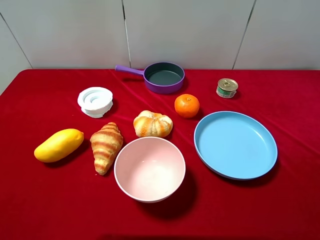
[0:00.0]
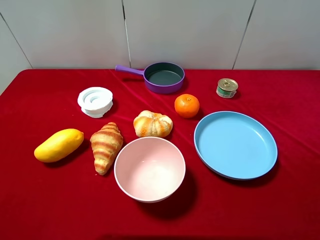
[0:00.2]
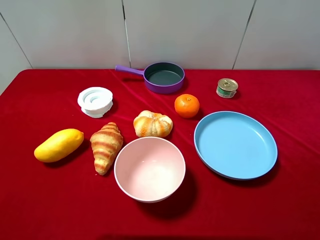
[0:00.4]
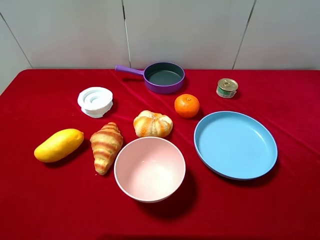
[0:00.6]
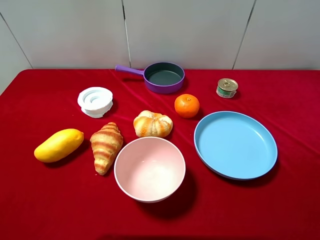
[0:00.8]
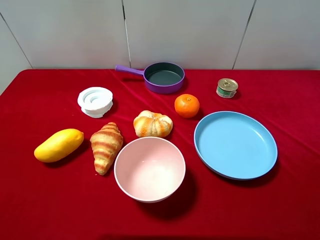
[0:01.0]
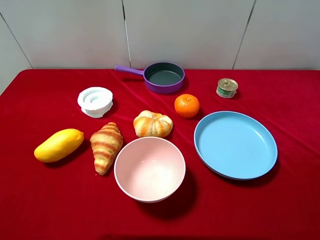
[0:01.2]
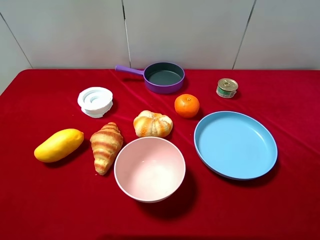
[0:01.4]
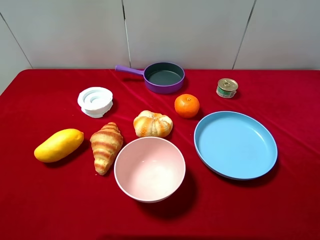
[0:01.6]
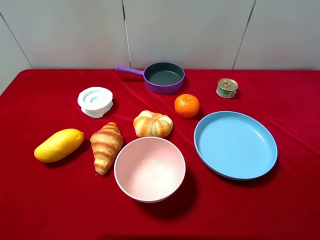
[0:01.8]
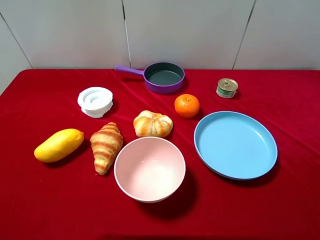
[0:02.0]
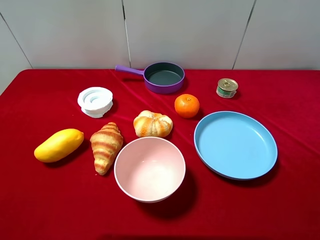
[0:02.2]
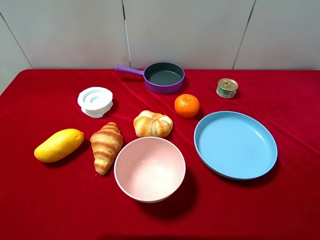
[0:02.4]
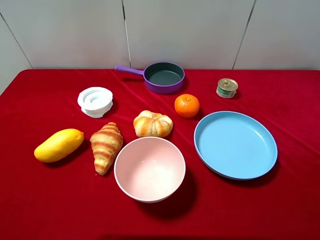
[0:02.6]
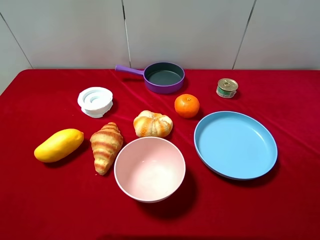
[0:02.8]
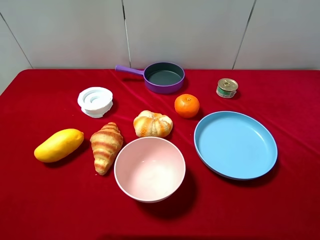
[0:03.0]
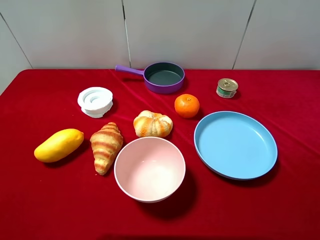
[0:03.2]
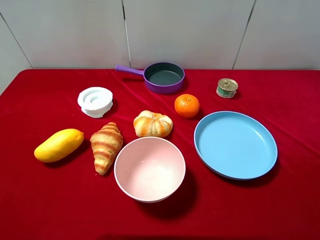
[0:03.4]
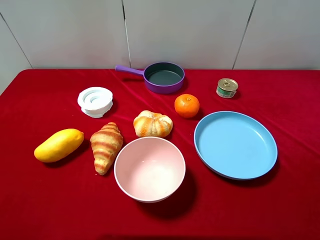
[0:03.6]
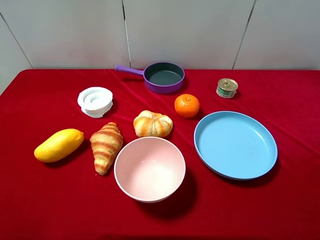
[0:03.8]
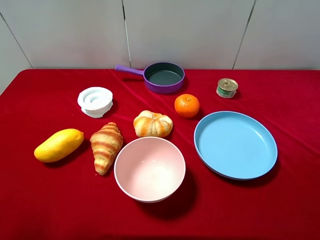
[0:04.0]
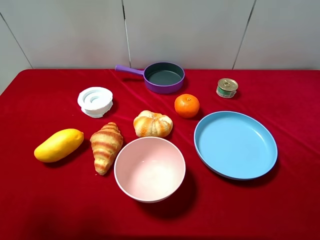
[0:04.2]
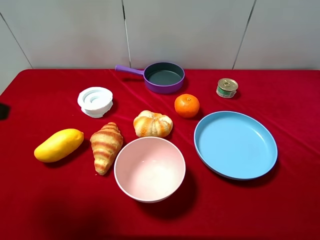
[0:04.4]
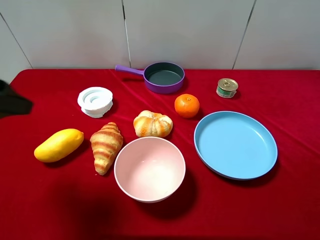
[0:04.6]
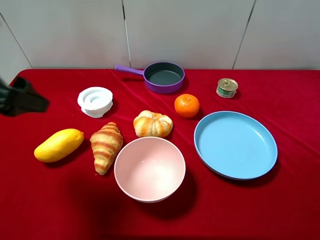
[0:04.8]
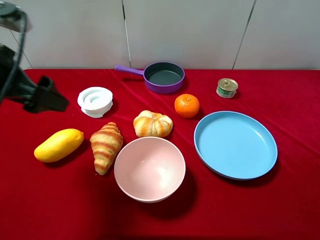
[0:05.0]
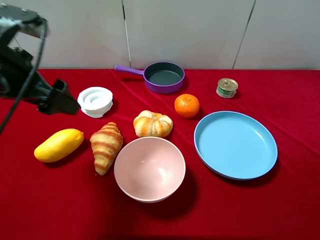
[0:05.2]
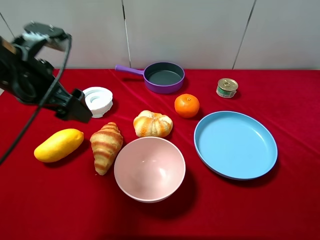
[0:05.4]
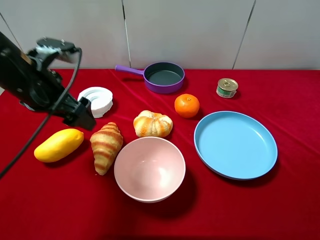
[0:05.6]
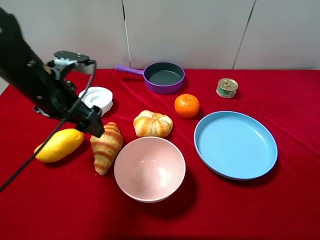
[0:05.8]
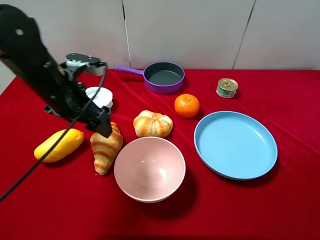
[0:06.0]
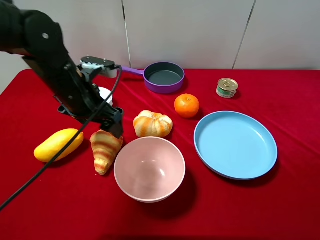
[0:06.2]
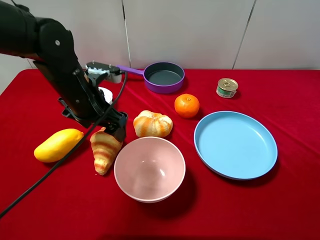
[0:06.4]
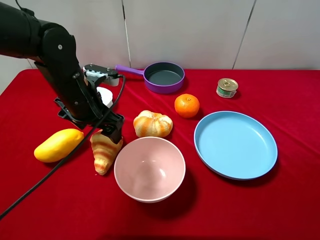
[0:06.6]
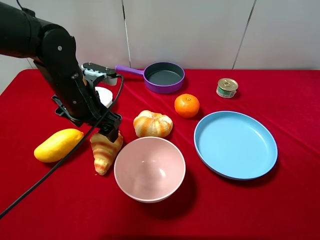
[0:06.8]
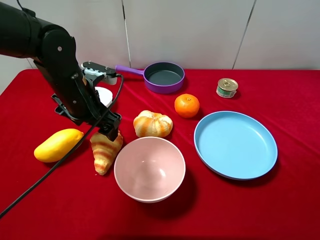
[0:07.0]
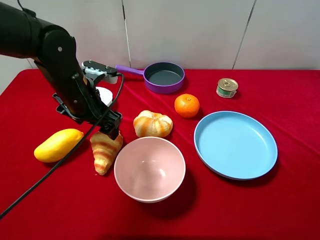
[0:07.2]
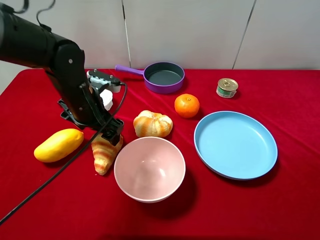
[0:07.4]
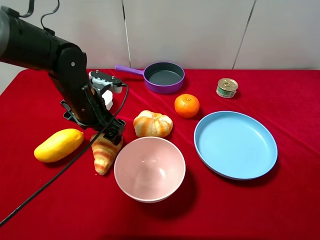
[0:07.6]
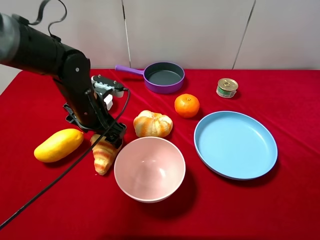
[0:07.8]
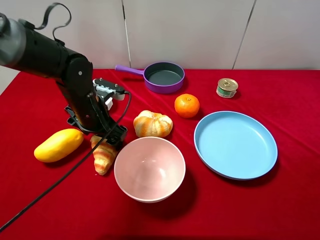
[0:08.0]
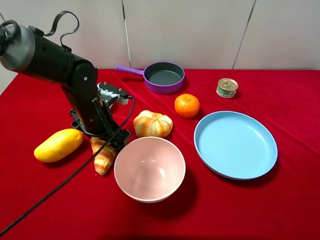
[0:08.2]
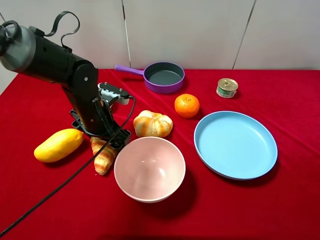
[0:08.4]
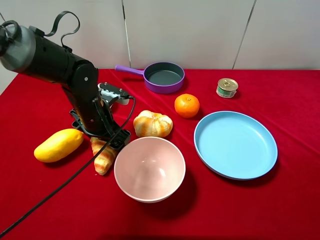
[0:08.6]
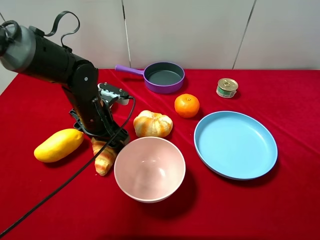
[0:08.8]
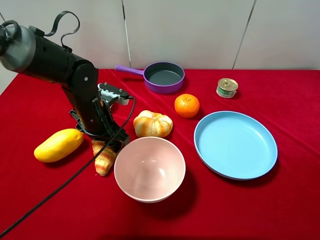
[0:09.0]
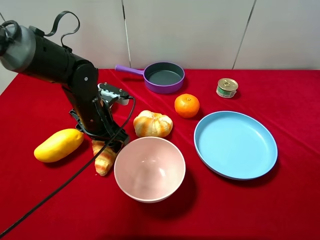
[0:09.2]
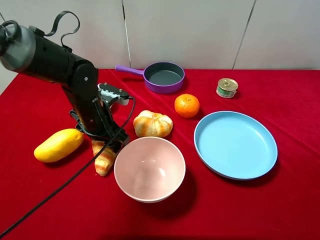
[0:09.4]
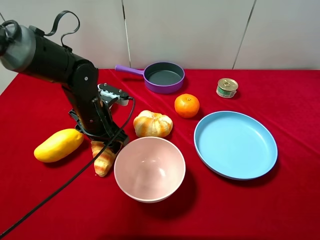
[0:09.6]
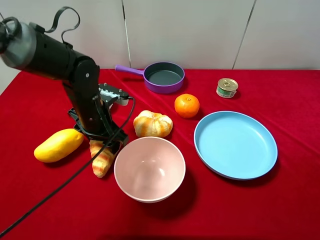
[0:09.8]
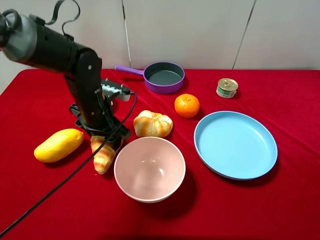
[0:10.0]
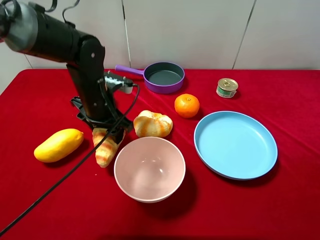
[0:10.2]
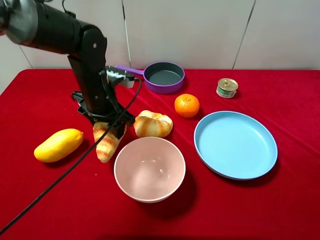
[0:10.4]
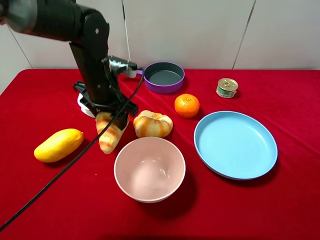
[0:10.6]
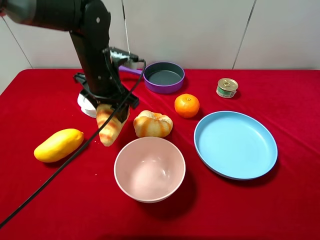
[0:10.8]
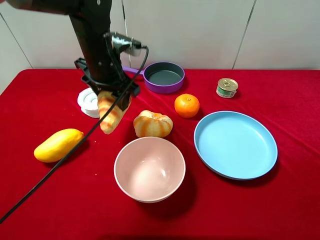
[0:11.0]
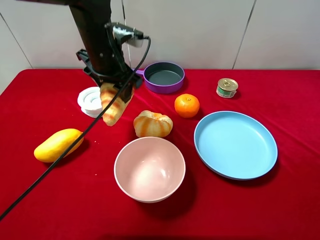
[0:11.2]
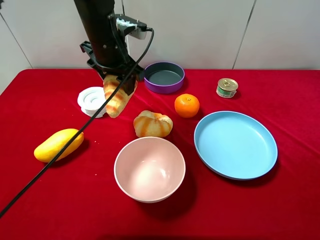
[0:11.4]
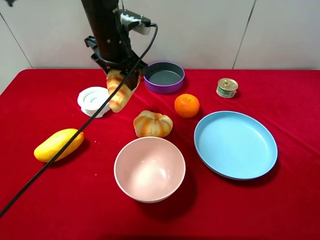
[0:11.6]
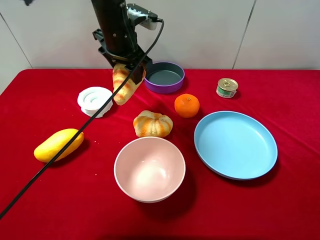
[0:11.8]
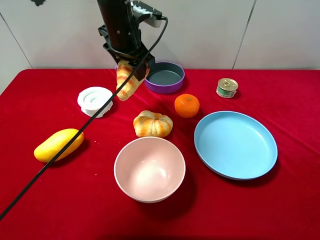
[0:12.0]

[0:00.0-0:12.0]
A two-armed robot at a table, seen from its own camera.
Task of the whole recording: pick up an item with a gripper and place it in a random container on the desktop.
0:00.0 to 0:03.0: Both grippers stay put.
0:03.0 to 0:04.4: The left gripper goes some 15 cm forward.
0:04.4 to 0:06.0: The left gripper heads forward, to the right and downward, covering some 20 cm.
0:06.0 to 0:07.6: The left gripper goes some 5 cm downward.
0:07.6 to 0:09.0: The left gripper closes its fingers.
0:09.0 to 0:10.4: The left gripper moves approximately 5 cm.
0:10.4 to 0:12.0: The left gripper shifts some 15 cm forward and upward.

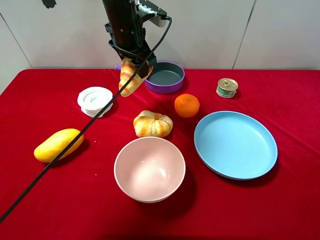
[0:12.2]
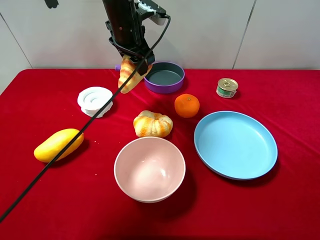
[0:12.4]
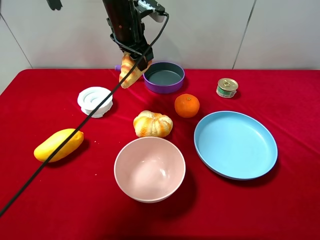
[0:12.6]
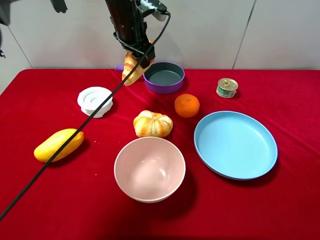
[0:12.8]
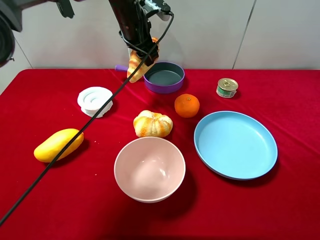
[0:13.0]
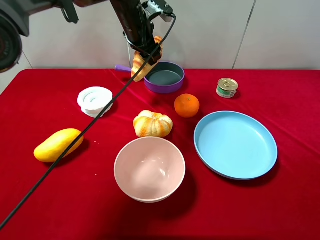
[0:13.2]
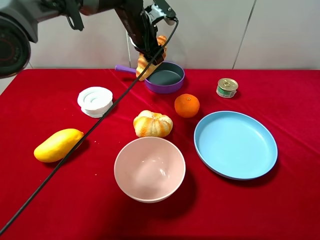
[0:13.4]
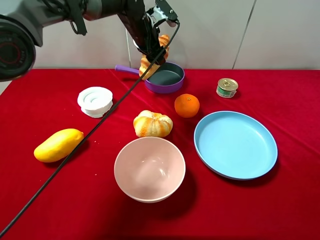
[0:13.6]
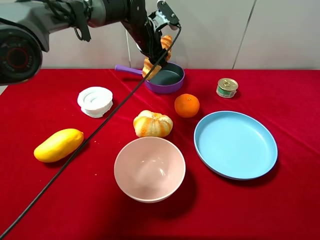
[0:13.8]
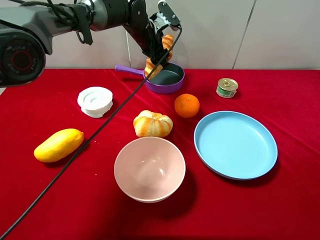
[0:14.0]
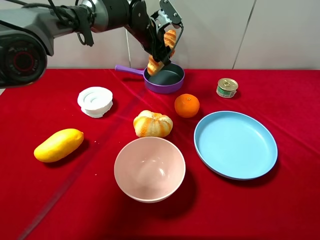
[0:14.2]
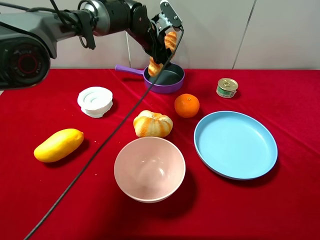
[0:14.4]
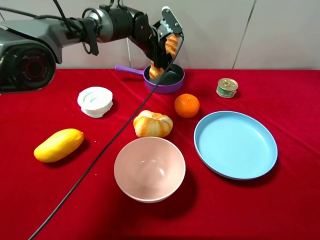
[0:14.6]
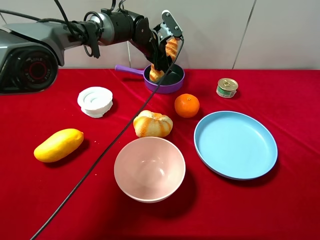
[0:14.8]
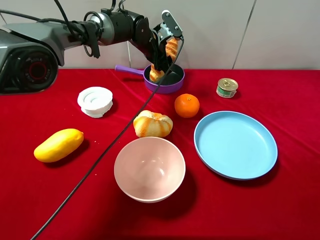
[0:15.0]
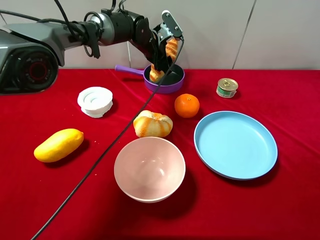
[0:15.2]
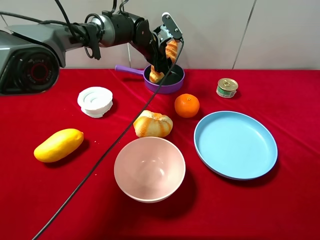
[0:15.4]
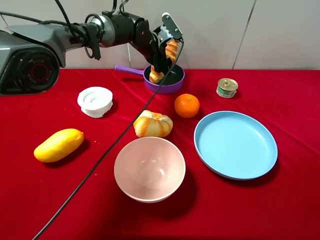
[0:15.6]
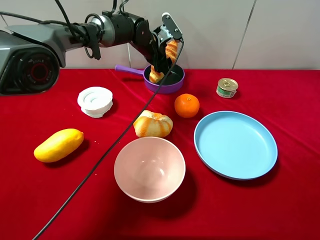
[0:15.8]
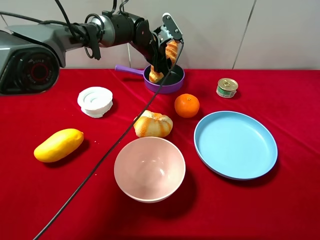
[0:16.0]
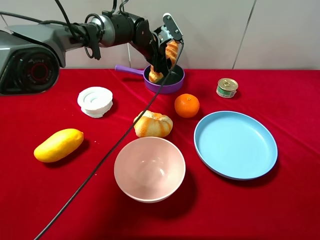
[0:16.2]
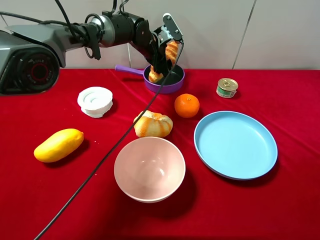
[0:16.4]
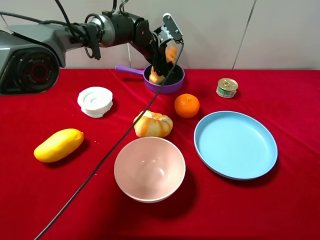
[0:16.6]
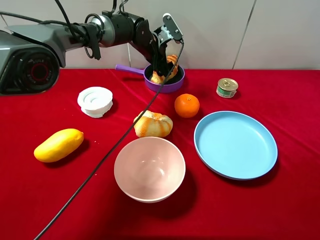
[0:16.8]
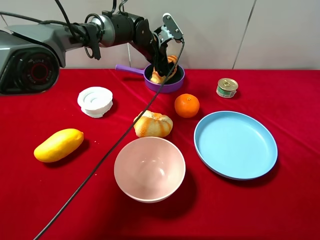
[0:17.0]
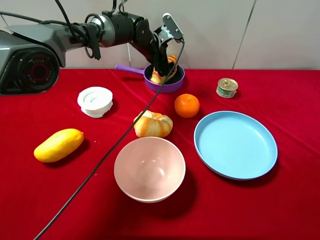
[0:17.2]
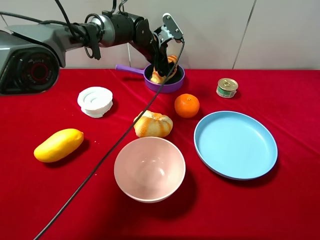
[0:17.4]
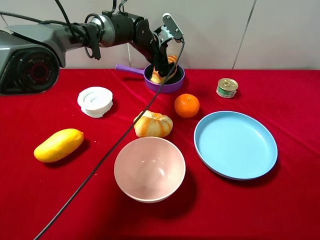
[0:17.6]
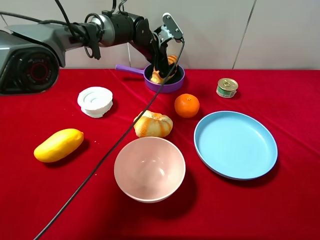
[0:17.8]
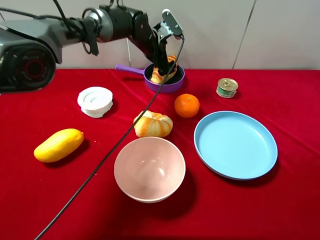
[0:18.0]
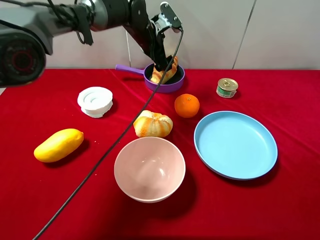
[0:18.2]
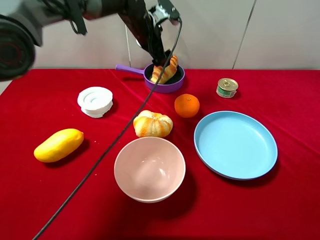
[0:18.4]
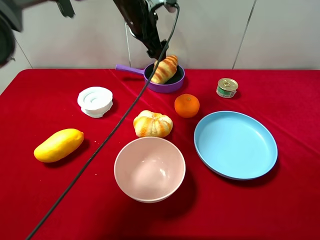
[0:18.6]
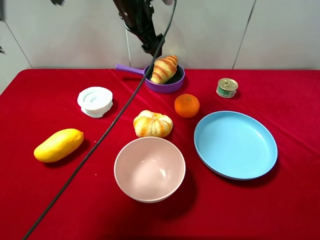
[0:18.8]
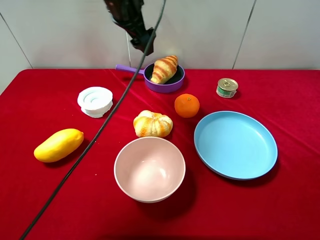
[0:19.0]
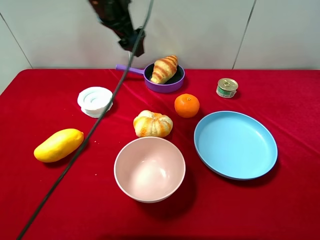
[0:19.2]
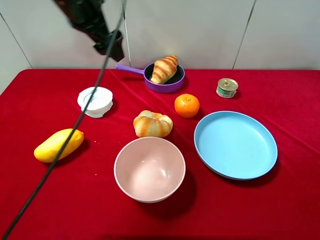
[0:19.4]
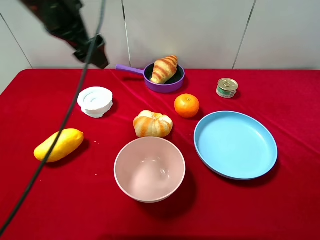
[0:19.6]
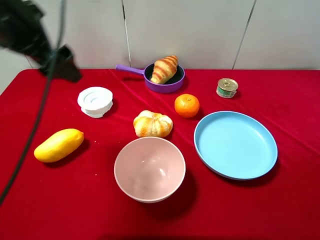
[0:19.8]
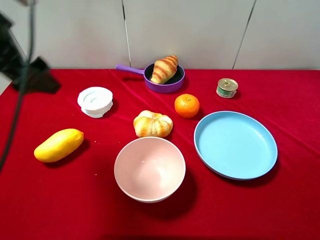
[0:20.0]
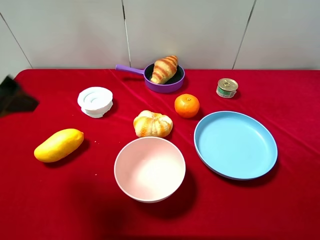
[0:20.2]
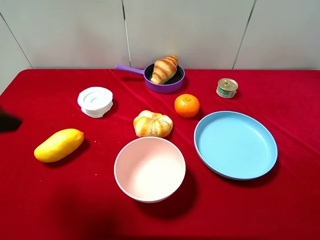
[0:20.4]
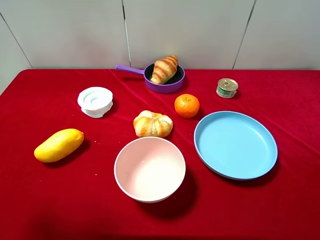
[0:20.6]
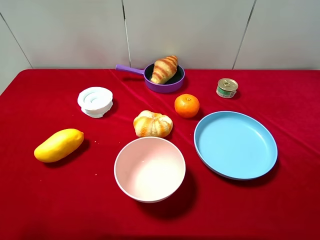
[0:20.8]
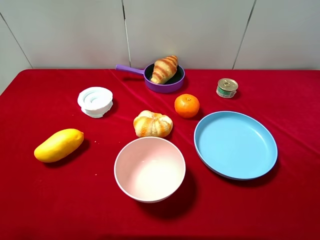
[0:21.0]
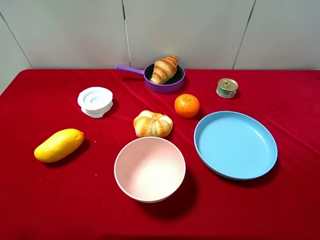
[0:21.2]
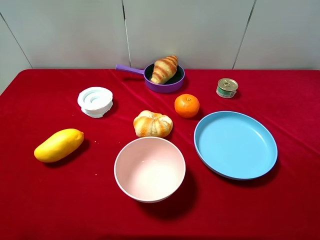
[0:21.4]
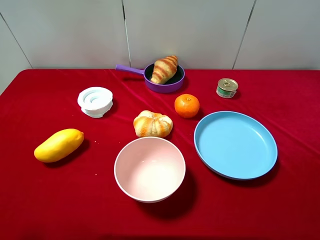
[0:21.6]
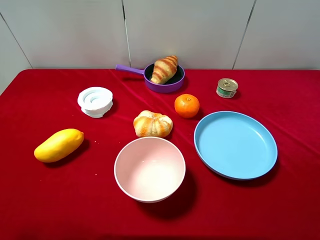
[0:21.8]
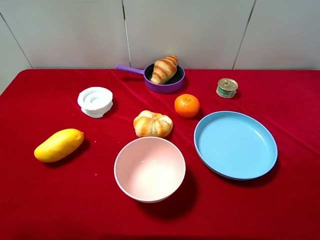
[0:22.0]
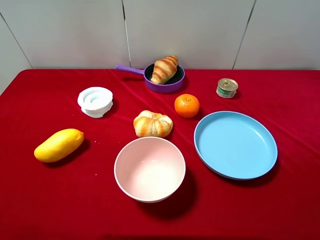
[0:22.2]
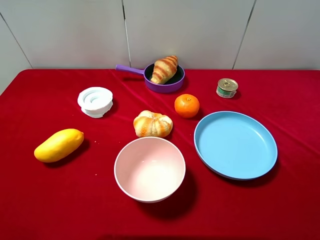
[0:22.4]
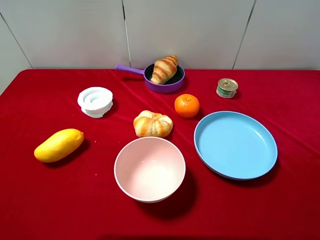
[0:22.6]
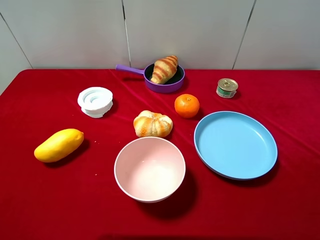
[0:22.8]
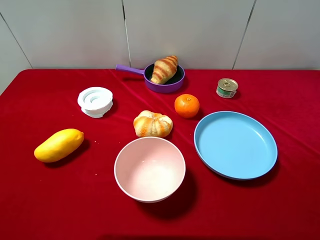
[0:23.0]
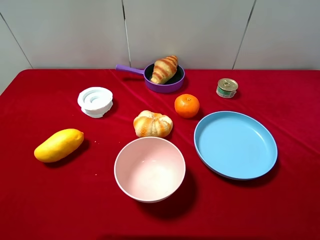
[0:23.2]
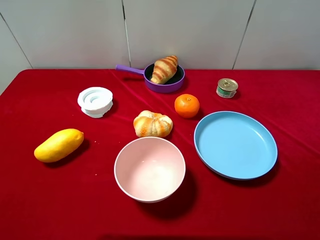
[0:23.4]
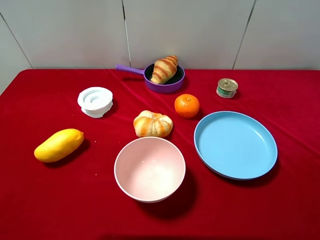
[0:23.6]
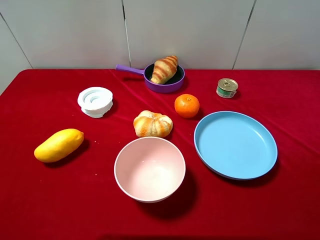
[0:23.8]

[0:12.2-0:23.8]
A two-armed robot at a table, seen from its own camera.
Task of the whole recording: pick up an item with a gripper and place it in a random container on the desktop.
0:12.2 to 0:13.6: The left gripper heads forward, covering roughly 5 cm.
0:13.6 to 0:15.0: The left gripper ends up roughly 5 cm from where it was.
0:15.0 to 0:16.6: The left gripper opens up.
0:16.6 to 0:18.0: The left gripper opens up.
0:18.0 to 0:19.4: The left gripper travels backward, upward and to the left by about 25 cm.
0:19.4 to 0:21.0: The left gripper is displaced backward and to the left by roughly 30 cm.
